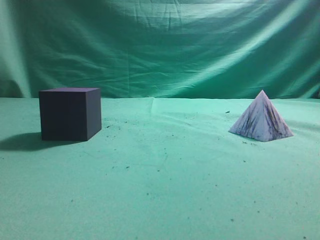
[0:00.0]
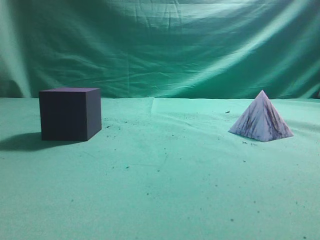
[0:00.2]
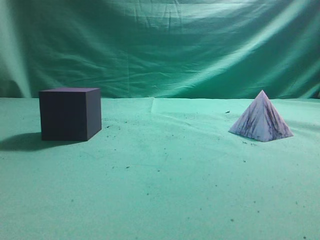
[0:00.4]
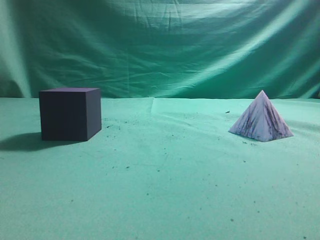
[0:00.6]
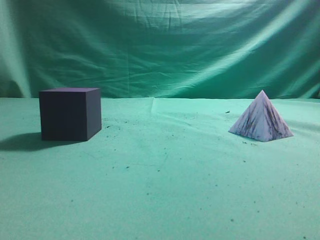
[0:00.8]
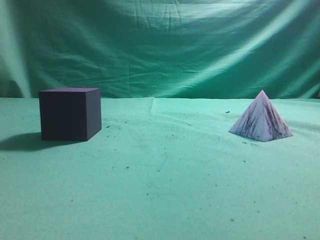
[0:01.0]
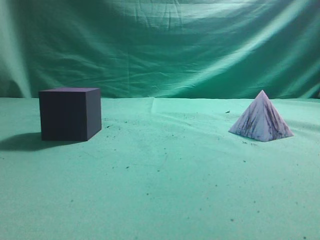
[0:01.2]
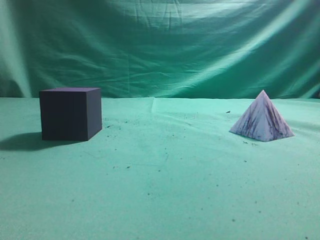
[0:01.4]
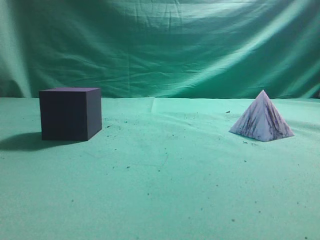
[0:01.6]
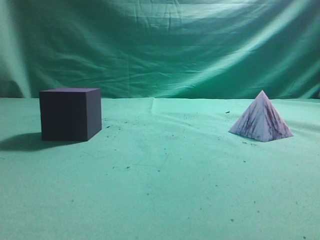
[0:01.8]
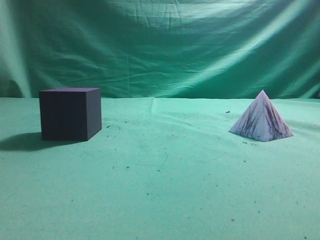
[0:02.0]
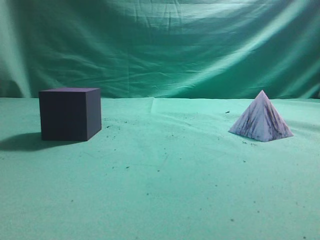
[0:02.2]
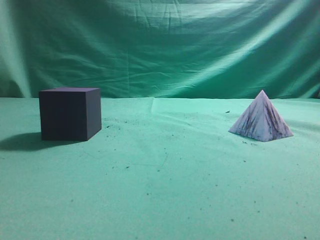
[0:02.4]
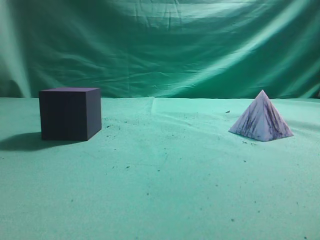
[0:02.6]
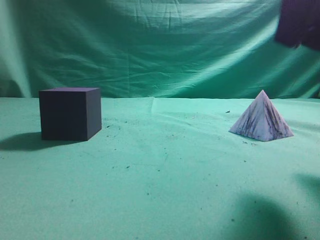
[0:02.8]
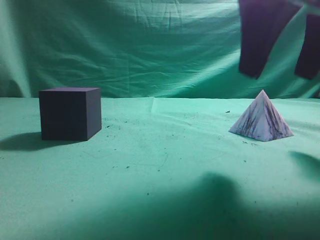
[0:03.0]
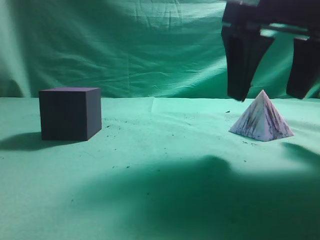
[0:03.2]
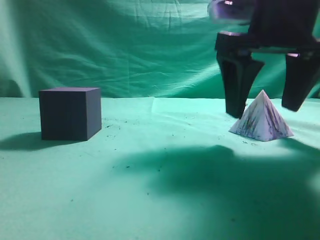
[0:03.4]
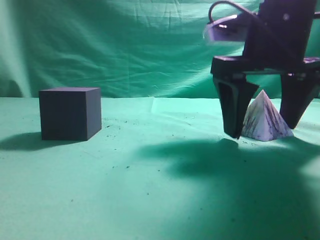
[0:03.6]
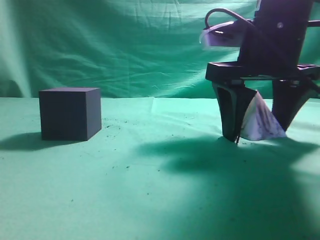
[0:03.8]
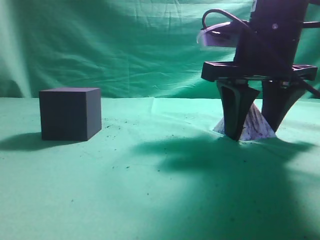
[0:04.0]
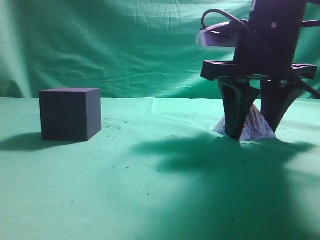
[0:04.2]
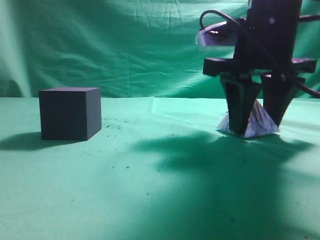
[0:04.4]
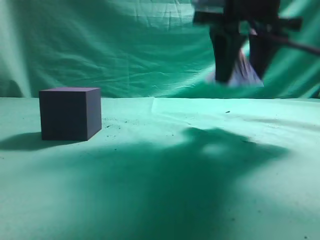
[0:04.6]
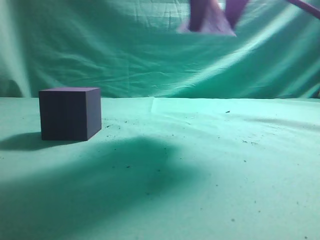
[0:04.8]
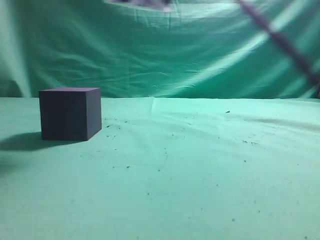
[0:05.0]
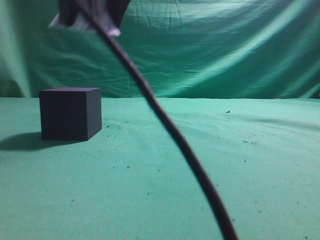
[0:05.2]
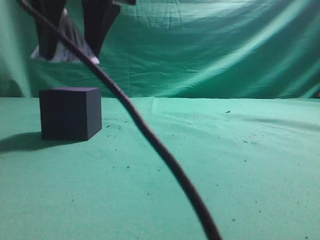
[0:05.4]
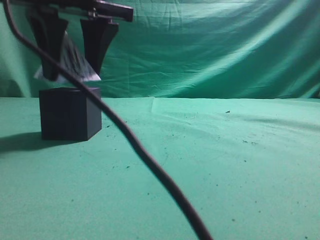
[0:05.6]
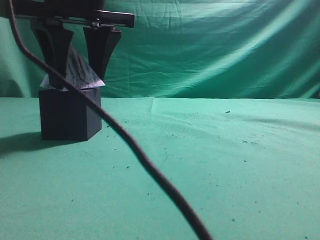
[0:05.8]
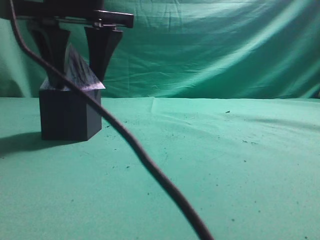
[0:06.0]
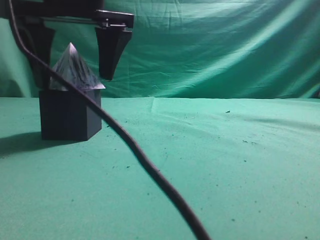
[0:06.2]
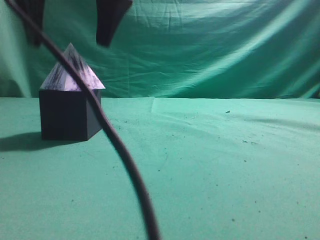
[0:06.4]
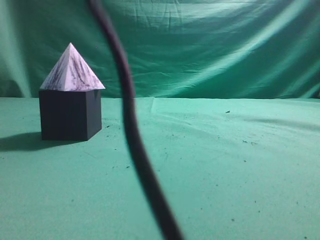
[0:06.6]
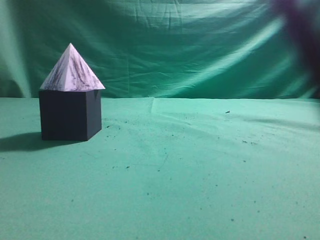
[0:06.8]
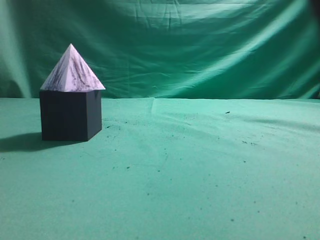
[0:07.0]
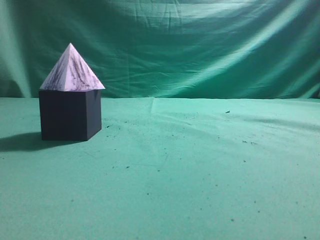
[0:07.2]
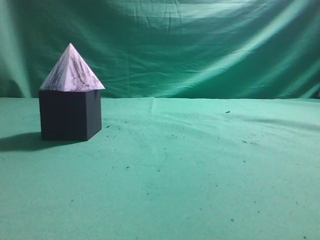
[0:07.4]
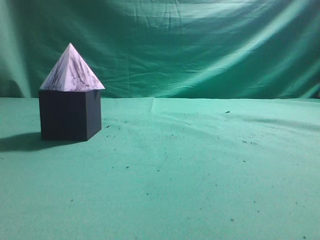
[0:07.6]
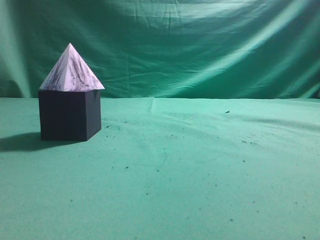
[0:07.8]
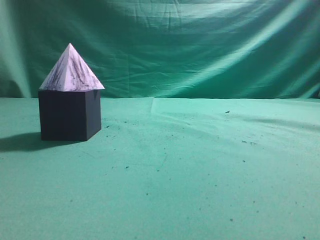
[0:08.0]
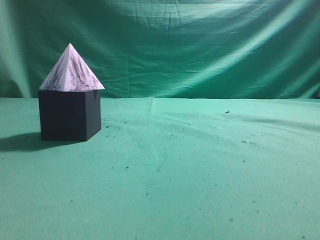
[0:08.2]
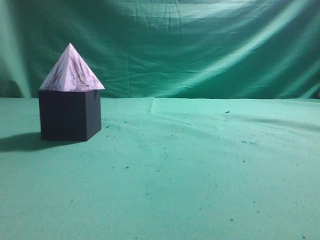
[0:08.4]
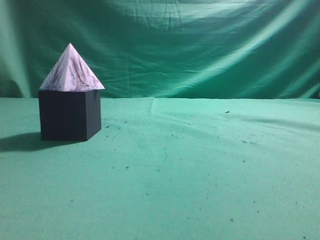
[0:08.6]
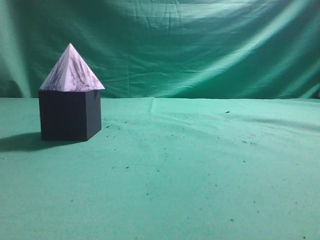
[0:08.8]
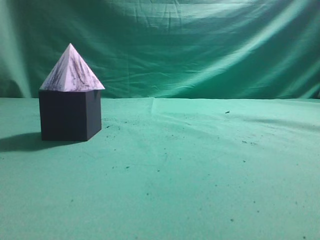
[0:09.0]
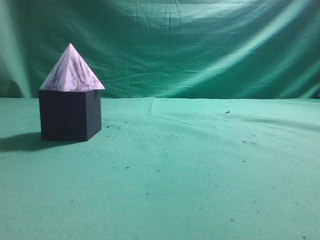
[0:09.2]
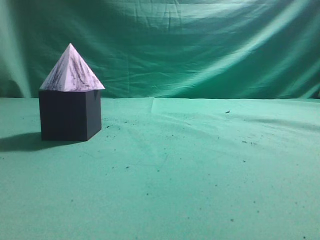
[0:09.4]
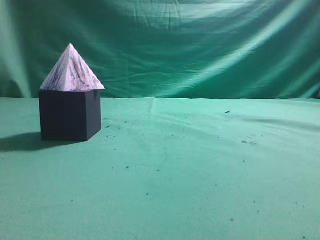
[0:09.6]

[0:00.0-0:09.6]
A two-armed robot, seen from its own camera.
Task of the whole recording: pick up the square pyramid from the table and place it on the cube block.
Step, 0:00.0 to 0:04.6: Grasp the triangular block.
Step, 0:04.8 to 0:06.4: Place the block onto the cube-shaped block.
0:01.6 to 0:03.2: The right gripper heads forward and to the left, covering about 25 cm, and opens up.
0:03.2 to 0:04.8: The right gripper travels upward, to the left and forward by about 10 cm, and closes.
0:04.8 to 0:06.4: The right gripper heads to the left, covering roughly 15 cm, and opens.
0:06.4 to 0:08.0: The right gripper moves to the right and backward, some 40 cm, and closes up.
